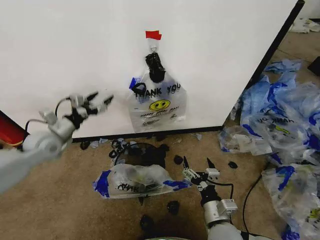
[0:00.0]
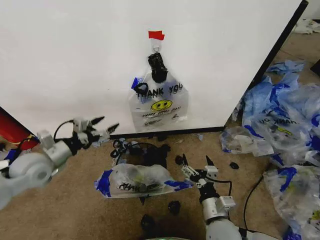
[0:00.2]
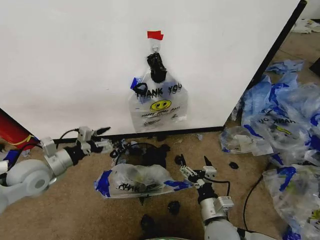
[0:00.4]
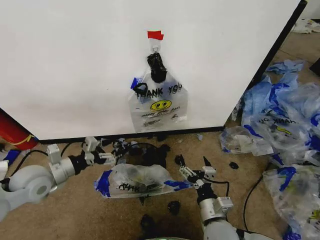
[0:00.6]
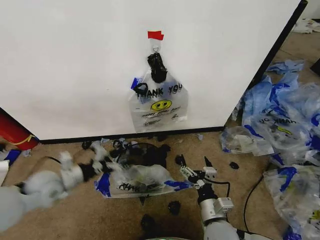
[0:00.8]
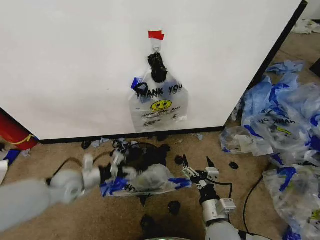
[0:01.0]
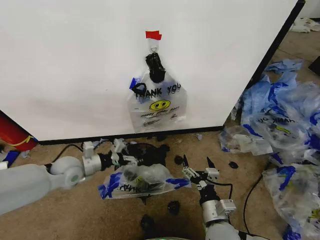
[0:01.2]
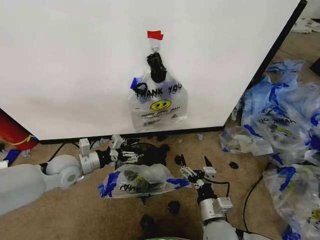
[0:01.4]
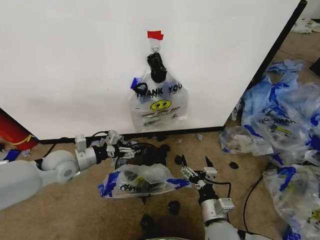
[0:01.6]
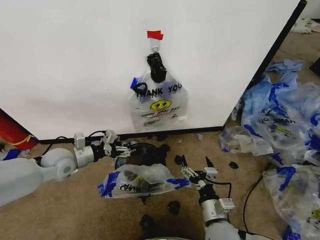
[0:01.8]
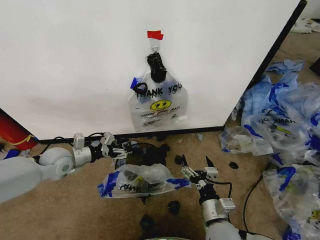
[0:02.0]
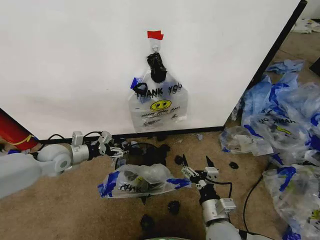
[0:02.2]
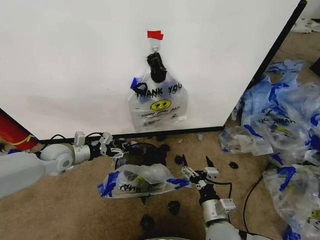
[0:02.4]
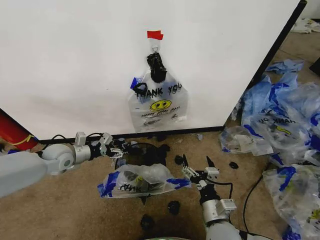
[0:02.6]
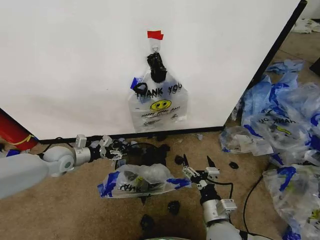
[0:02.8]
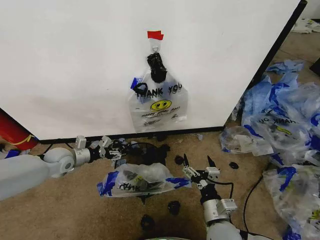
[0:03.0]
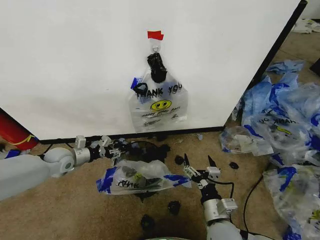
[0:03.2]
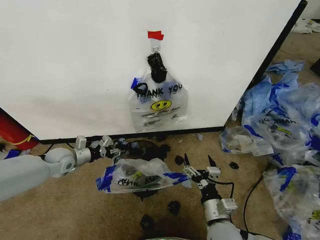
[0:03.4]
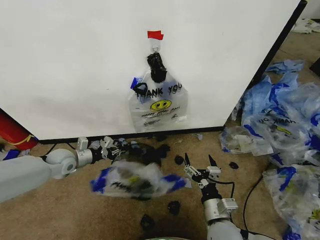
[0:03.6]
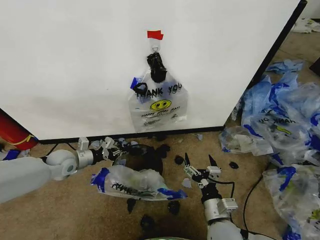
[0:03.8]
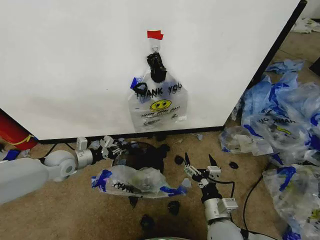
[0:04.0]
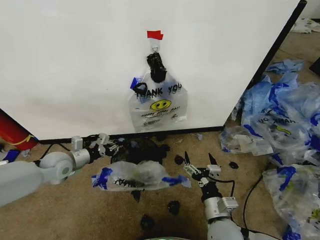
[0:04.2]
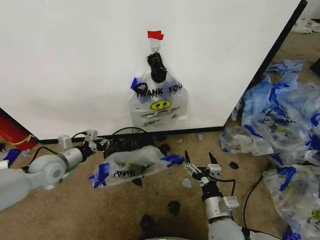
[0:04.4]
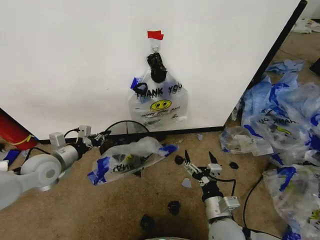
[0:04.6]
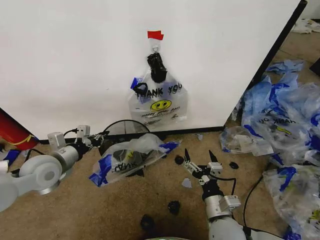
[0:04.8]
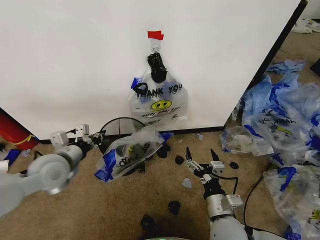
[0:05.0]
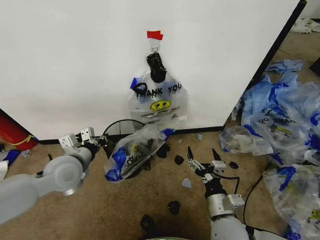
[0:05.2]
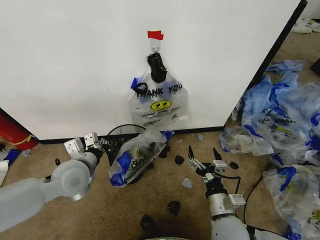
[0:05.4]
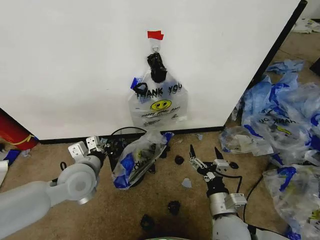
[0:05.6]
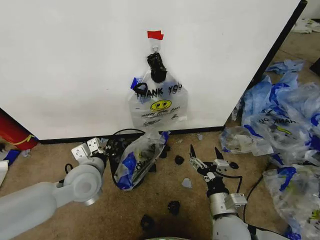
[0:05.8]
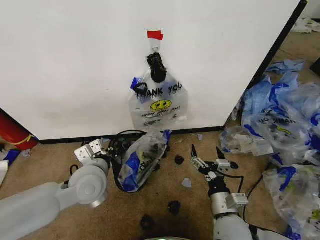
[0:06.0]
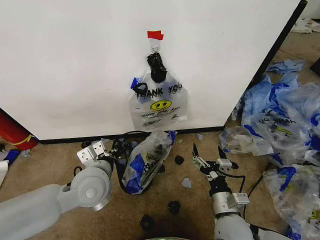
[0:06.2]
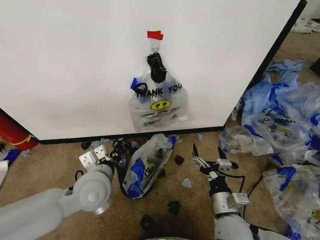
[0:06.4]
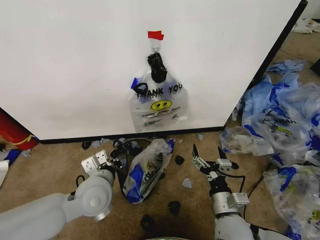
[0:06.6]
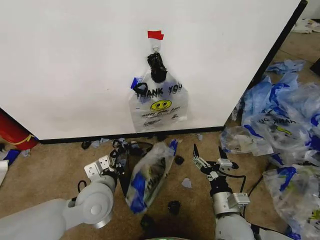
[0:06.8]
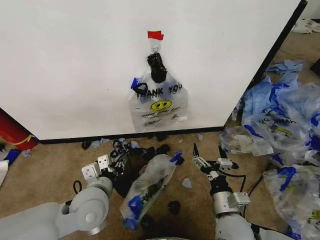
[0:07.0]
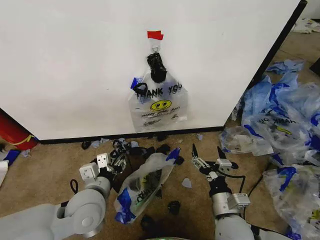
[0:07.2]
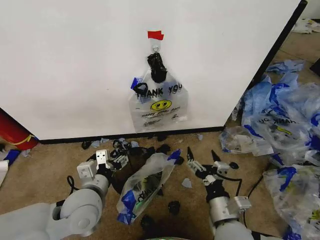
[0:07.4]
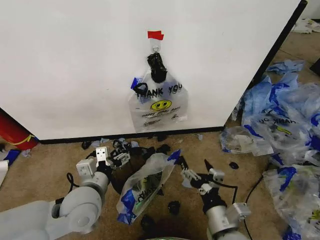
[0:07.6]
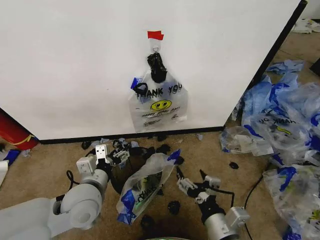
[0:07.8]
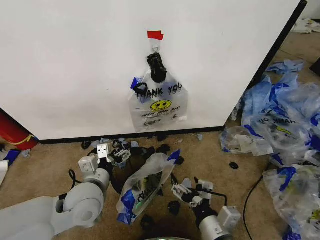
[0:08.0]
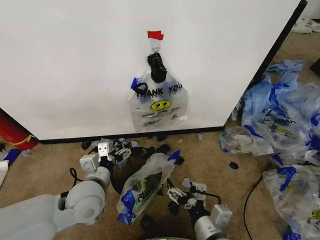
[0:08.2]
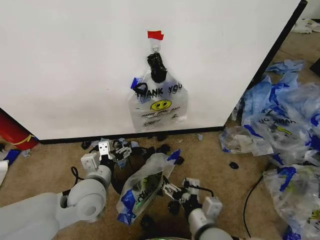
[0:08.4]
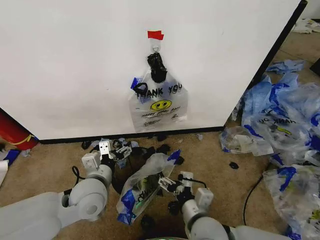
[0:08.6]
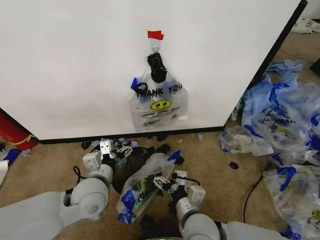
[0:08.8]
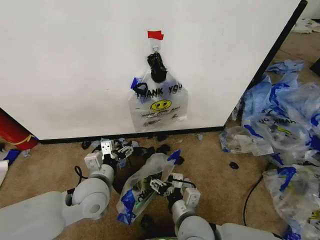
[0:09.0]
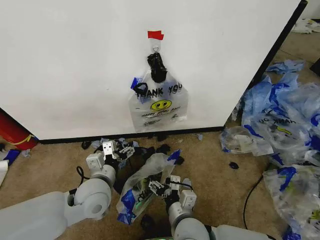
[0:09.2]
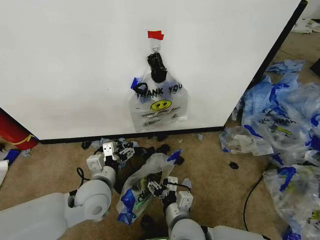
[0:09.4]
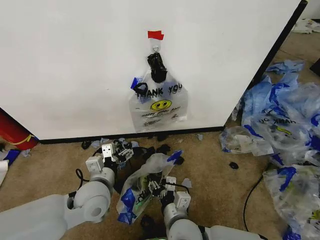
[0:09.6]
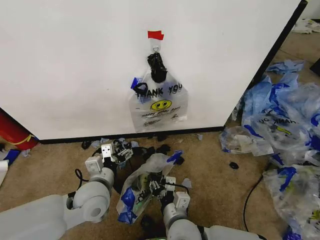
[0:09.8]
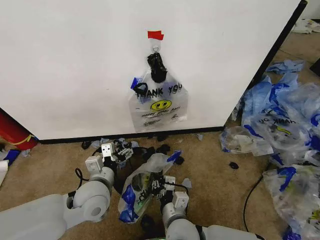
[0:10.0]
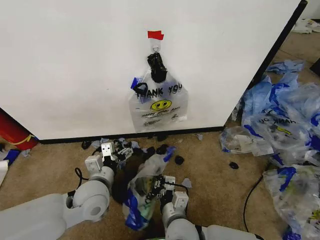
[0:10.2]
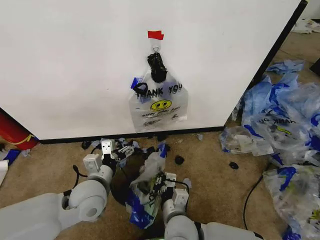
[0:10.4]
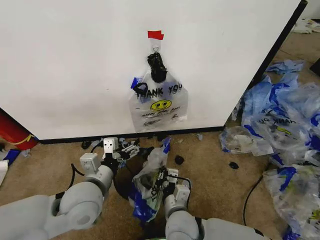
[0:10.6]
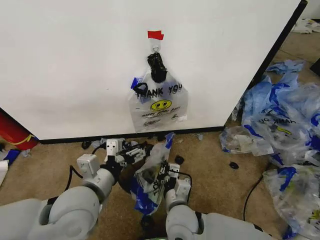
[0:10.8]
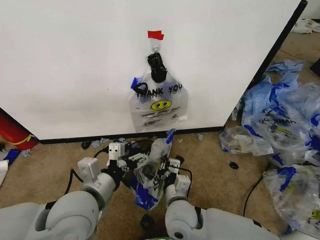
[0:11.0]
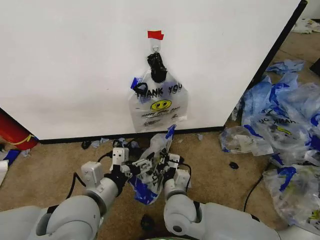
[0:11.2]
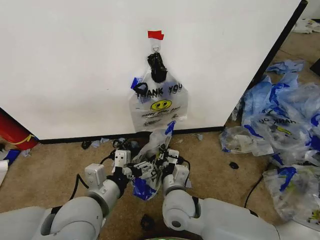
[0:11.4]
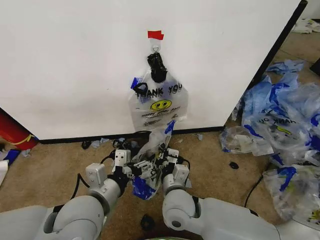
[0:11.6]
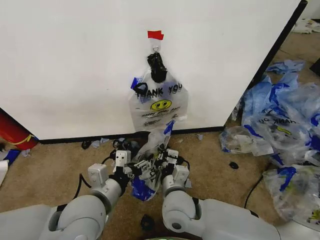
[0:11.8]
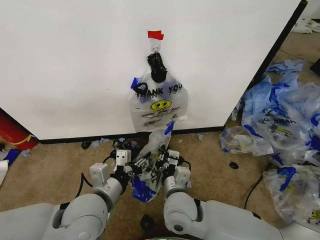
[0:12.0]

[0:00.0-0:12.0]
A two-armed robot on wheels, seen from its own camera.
Task of the whole recording: Pick up the garbage bag from the wall and place it over the trash bin.
0:00.0 to 0:01.6: The left gripper shifts roughly 10 cm backward, to the right and downward.
0:01.6 to 0:03.0: The left gripper moves to the left, forward and downward, roughly 10 cm.
0:03.0 to 0:04.4: The left gripper travels backward by about 5 cm, and closes.
0:04.4 to 0:06.0: The left gripper heads to the right and backward, covering about 20 cm.
0:06.0 to 0:07.6: The right gripper moves approximately 5 cm; the left gripper moves backward, some 5 cm, and opens up.
0:07.6 to 0:09.0: The right gripper travels to the left by approximately 10 cm.
0:09.0 to 0:10.4: The right gripper closes up.
0:10.4 to 0:12.0: The right gripper travels forward by about 5 cm. Meanwhile the left gripper heads backward, covering about 5 cm, and closes up.

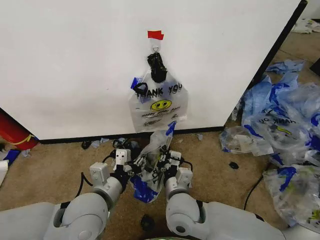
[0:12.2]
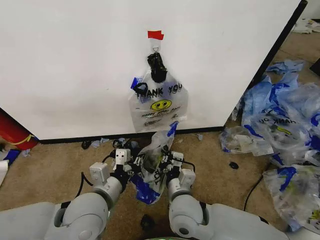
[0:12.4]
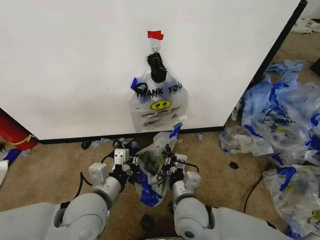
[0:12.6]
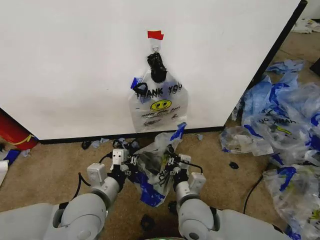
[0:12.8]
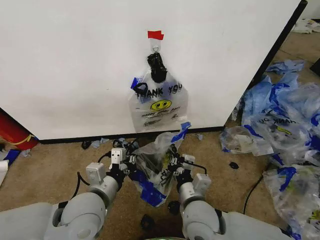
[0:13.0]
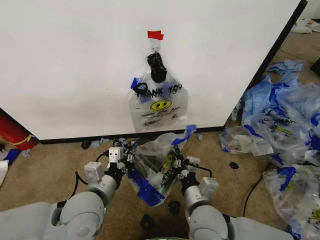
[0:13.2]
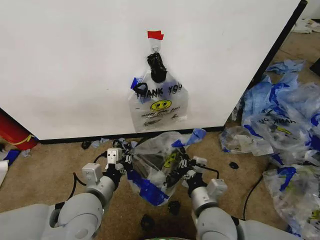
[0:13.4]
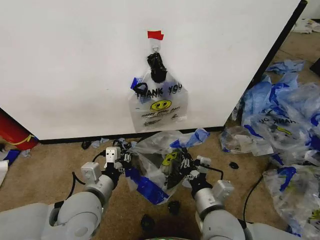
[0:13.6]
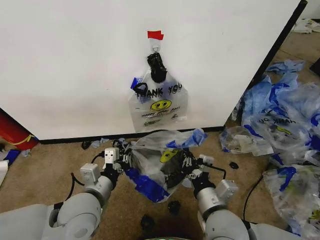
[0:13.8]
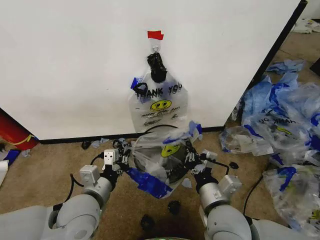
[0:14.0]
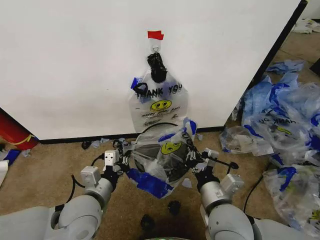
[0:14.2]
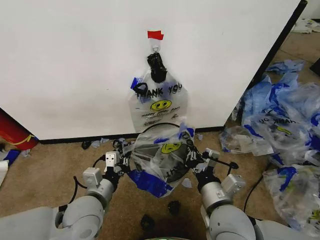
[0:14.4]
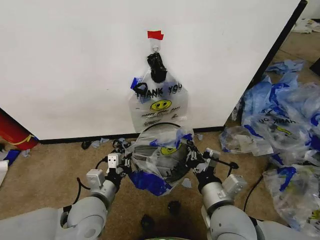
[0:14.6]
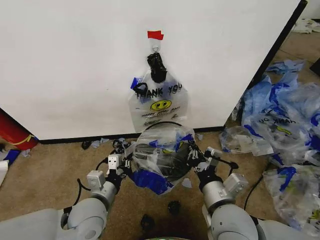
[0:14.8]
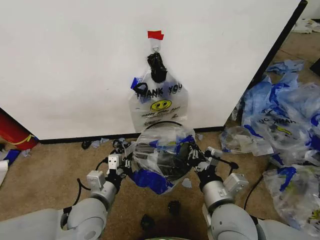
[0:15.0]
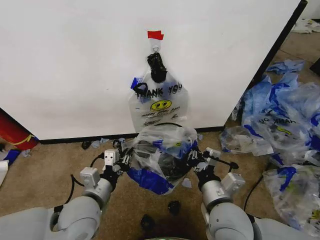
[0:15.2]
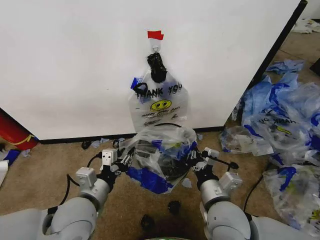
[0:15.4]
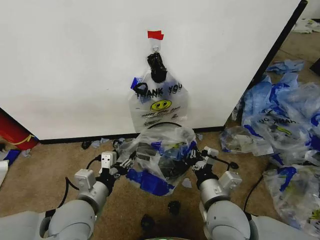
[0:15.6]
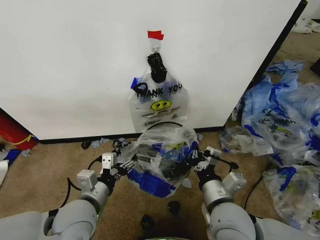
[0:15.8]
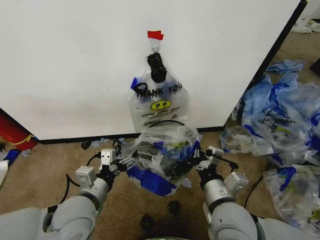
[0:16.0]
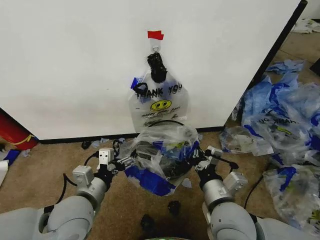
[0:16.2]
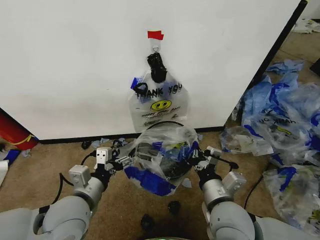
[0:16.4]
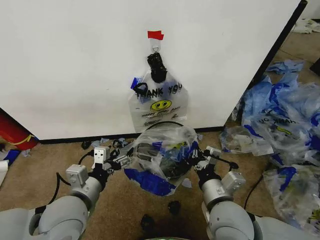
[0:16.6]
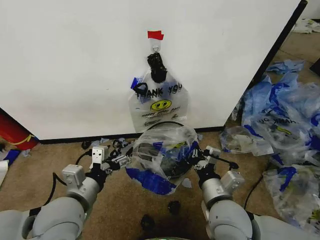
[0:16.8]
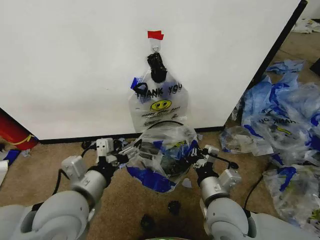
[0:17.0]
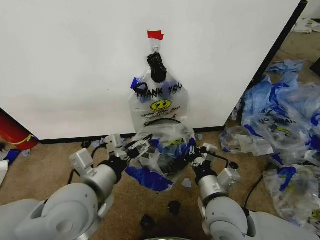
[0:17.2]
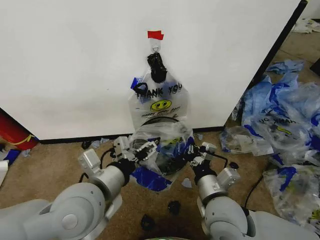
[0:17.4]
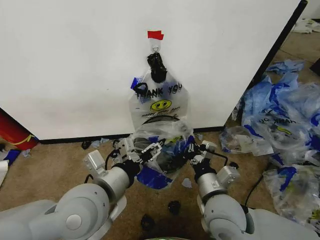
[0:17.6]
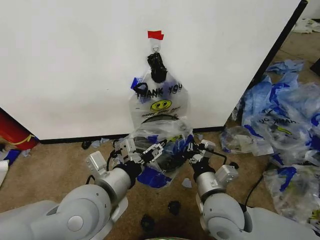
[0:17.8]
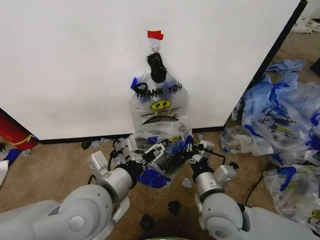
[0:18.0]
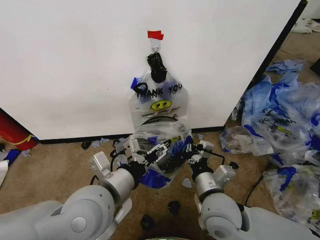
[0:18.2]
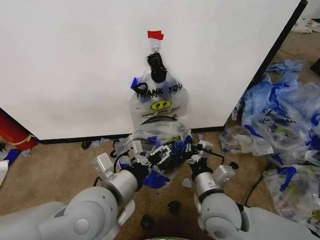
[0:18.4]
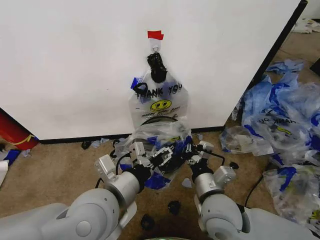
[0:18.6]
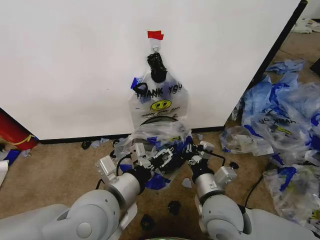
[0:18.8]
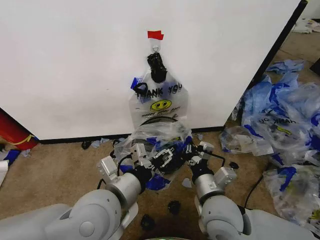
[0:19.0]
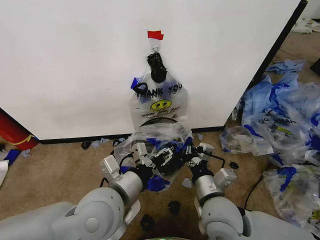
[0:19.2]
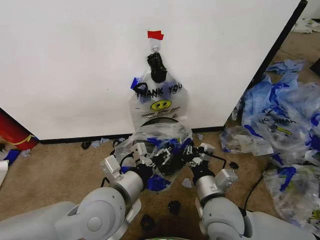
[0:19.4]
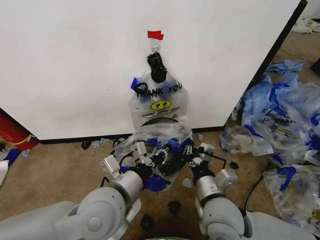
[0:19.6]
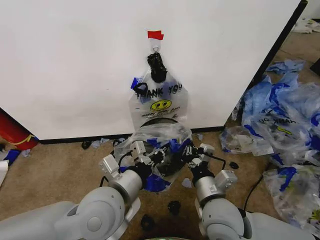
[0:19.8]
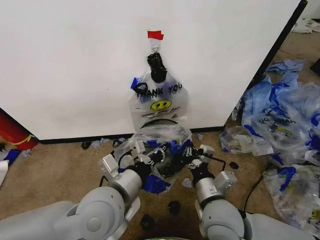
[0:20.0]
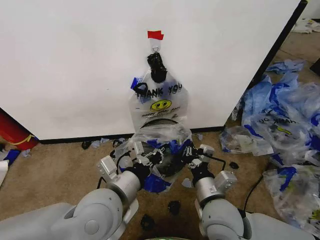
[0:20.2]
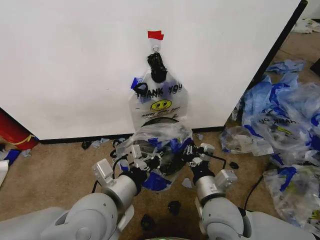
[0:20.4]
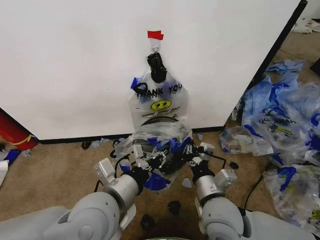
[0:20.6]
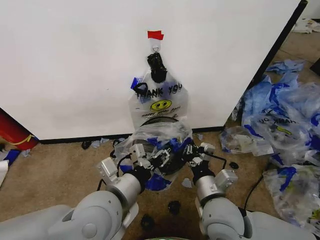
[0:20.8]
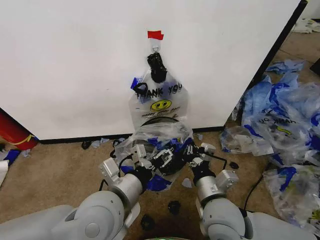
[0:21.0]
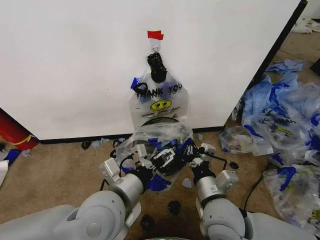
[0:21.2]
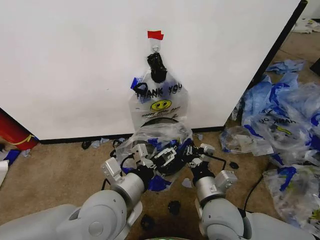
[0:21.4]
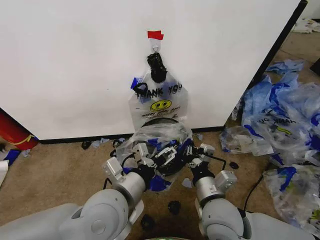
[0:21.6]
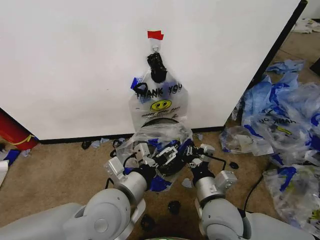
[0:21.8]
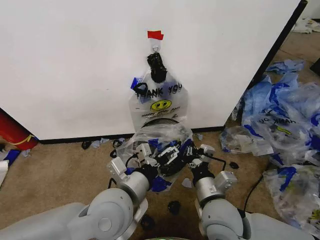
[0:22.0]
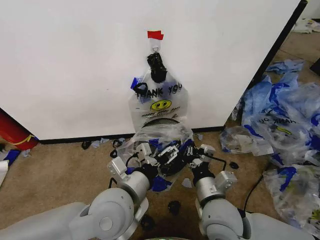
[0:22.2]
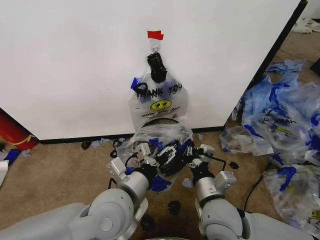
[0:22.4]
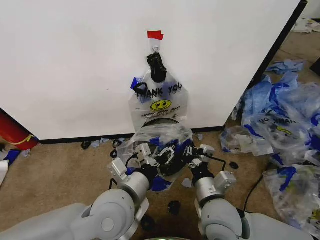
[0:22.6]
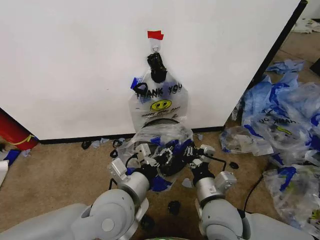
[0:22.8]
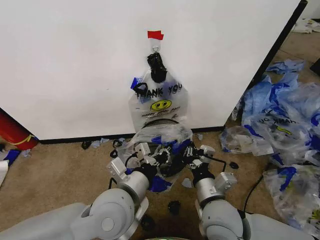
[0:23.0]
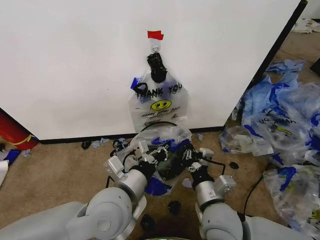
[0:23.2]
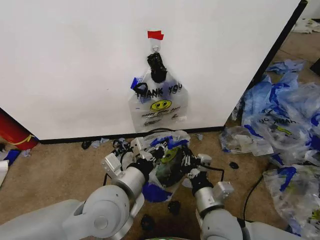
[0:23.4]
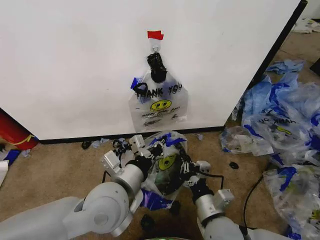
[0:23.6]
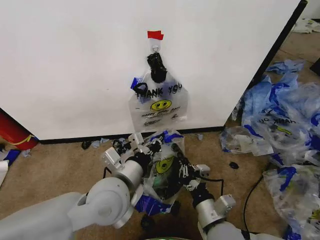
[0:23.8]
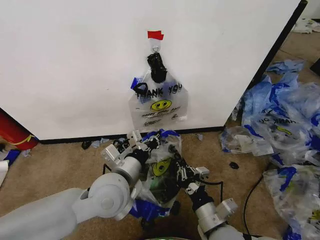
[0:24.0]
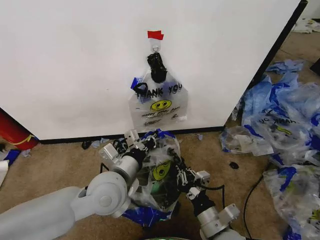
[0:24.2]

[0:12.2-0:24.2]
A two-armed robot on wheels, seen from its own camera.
Task of the whole recording: Pick up the garbage bag from the wall and place it over the trash bin.
0:12.2 to 0:13.8: The right gripper goes some 10 cm to the right and backward.
0:13.8 to 0:15.2: The grippers stay close to where they were, moving slightly.
0:15.2 to 0:16.6: The left gripper opens.
0:16.6 to 0:18.2: The left gripper goes some 10 cm to the right and upward.
0:18.2 to 0:19.8: The left gripper closes.
0:19.8 to 0:21.2: The left gripper opens.
0:21.2 to 0:22.6: The left gripper closes its fingers.
0:22.6 to 0:24.2: The right gripper moves downward and backward, about 10 cm, while the left gripper moves some 5 cm, and closes its fingers.
